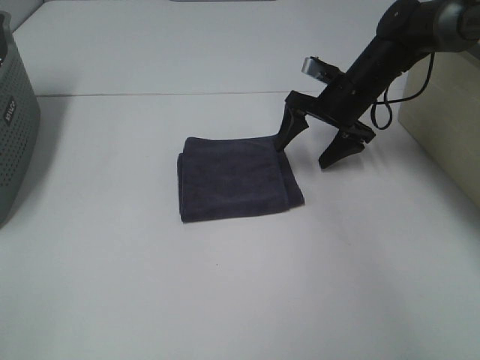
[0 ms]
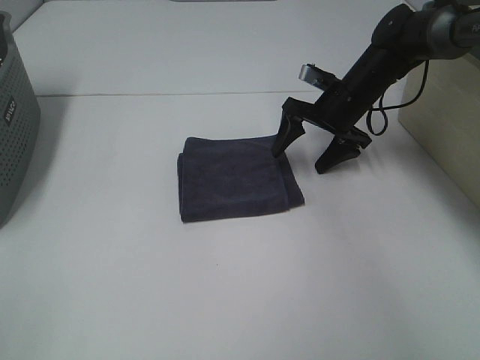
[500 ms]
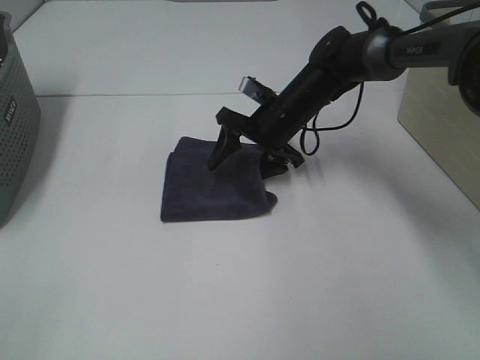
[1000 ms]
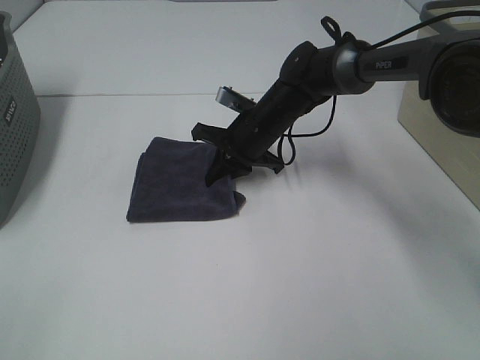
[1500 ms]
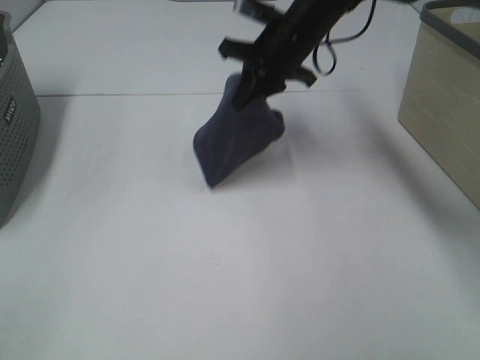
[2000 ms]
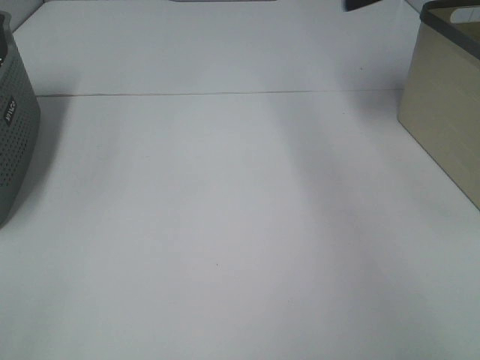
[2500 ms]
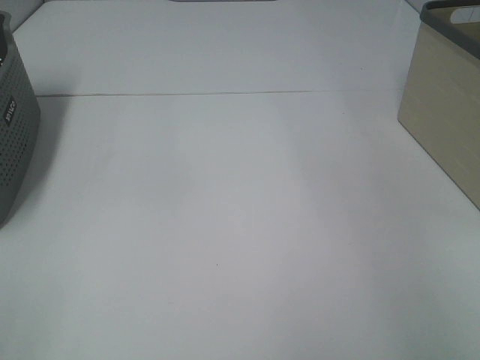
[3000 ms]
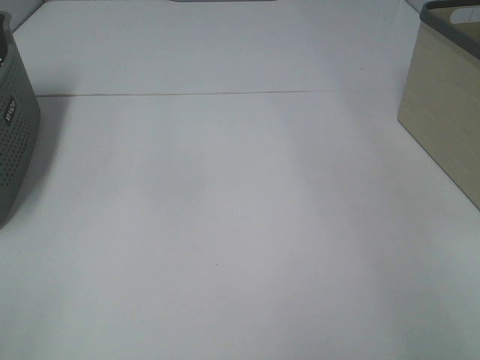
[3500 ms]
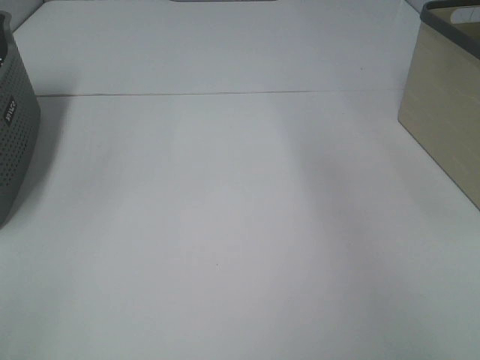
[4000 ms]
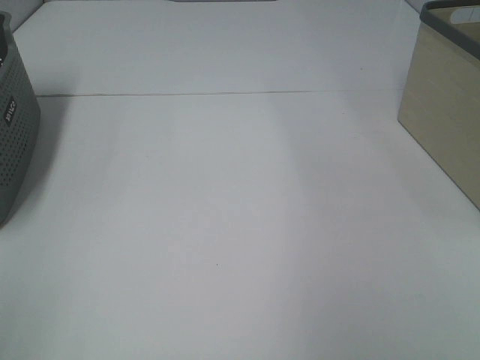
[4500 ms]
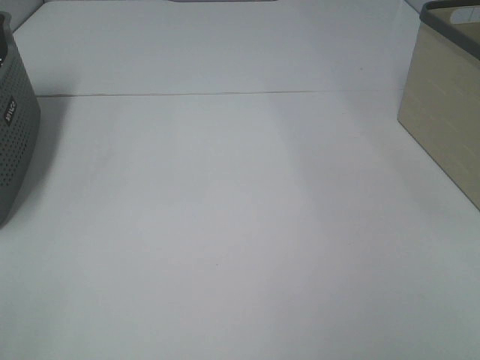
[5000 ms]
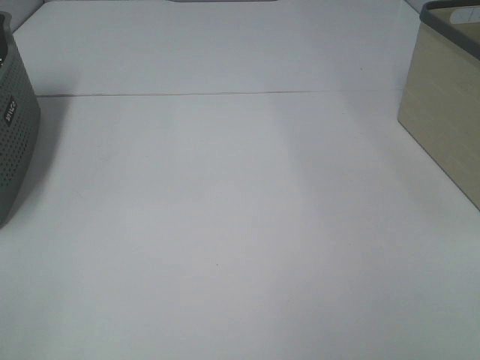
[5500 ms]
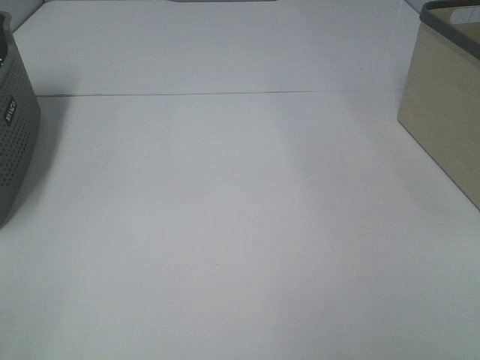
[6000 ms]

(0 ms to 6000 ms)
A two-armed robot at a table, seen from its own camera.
Step, 1500 ms - 3000 ms: Right hand: place the grey towel in right basket.
0 ms - 2000 ms: The right gripper is displaced upward and to the left by about 15 cm, and closes its fingers.
2000 ms - 4000 ms: The right gripper moves to the right and upward, approximately 30 cm, and opens its fingers.

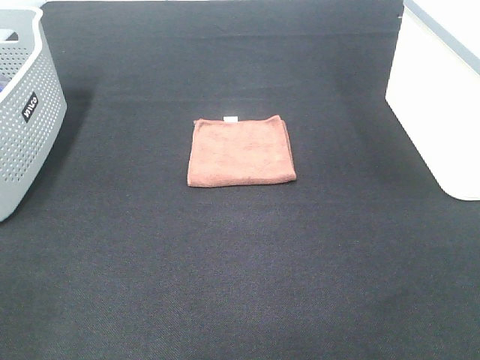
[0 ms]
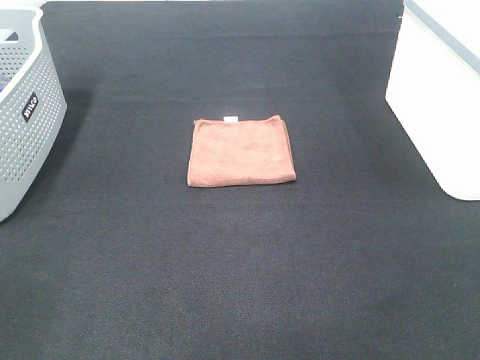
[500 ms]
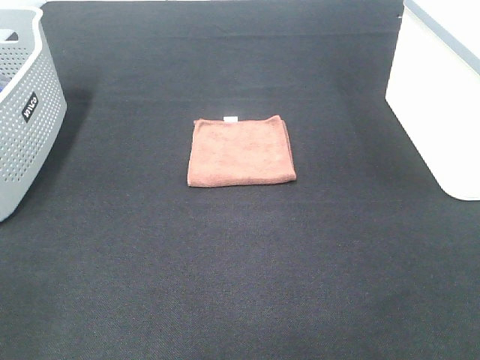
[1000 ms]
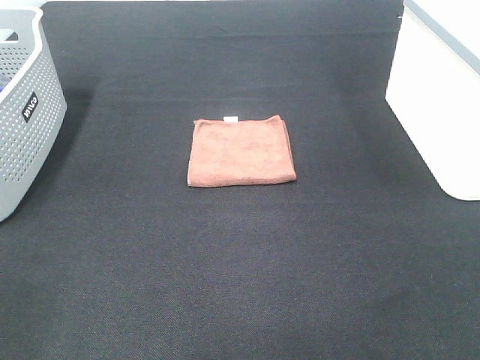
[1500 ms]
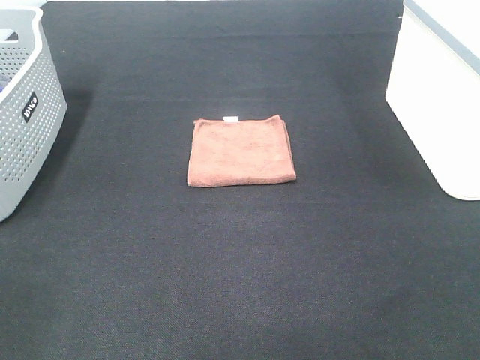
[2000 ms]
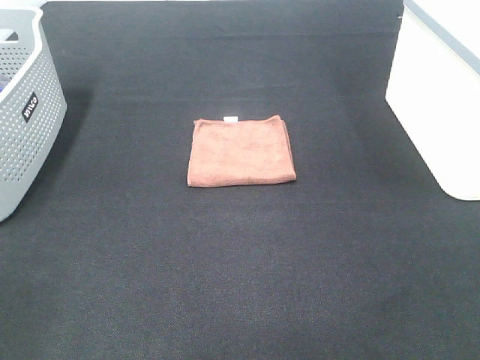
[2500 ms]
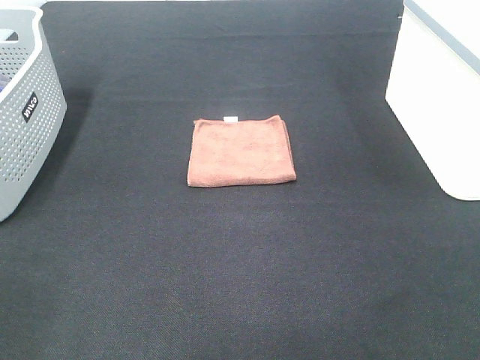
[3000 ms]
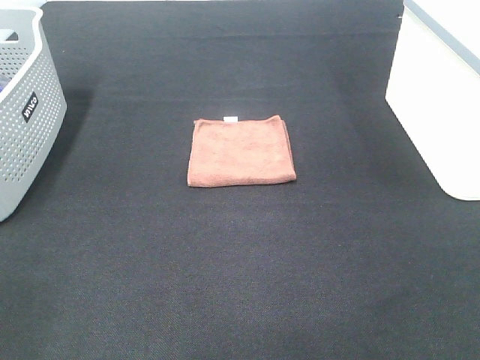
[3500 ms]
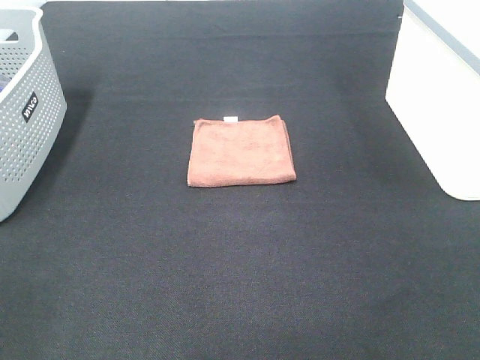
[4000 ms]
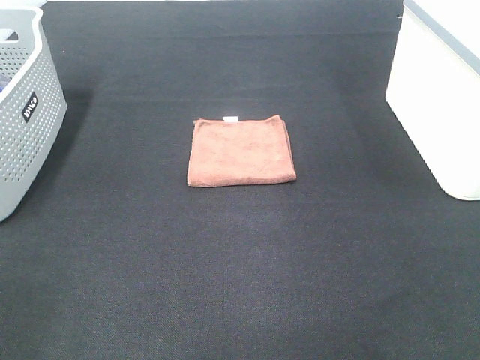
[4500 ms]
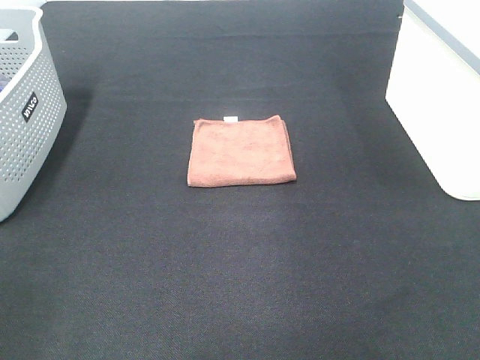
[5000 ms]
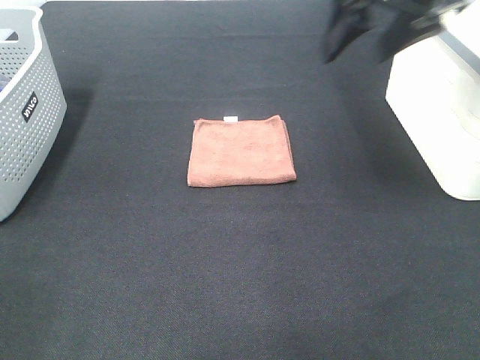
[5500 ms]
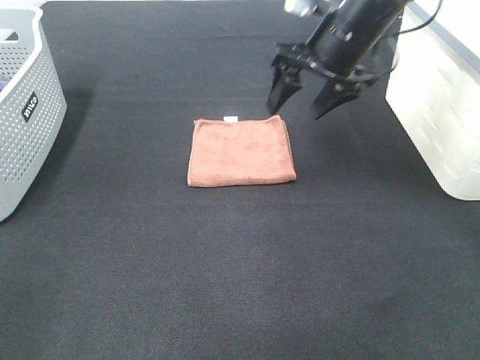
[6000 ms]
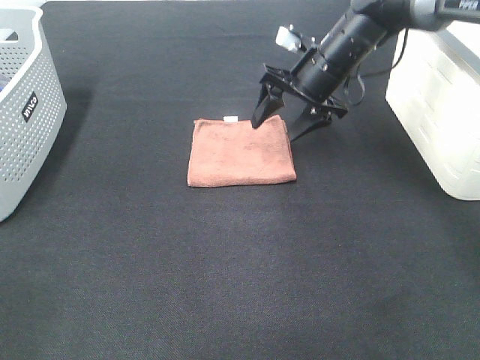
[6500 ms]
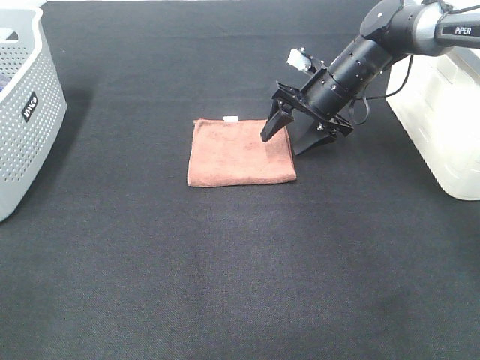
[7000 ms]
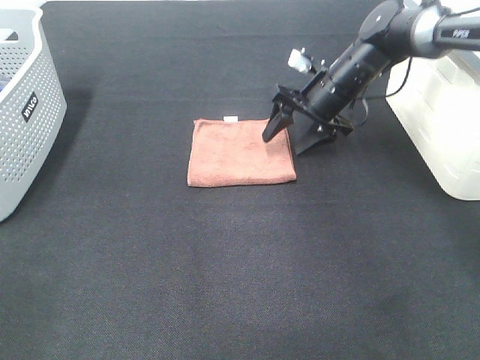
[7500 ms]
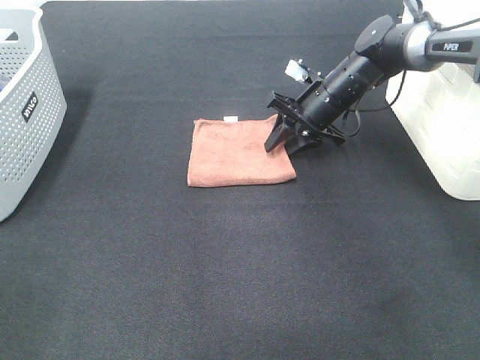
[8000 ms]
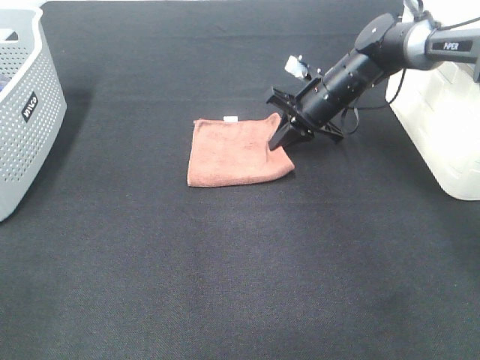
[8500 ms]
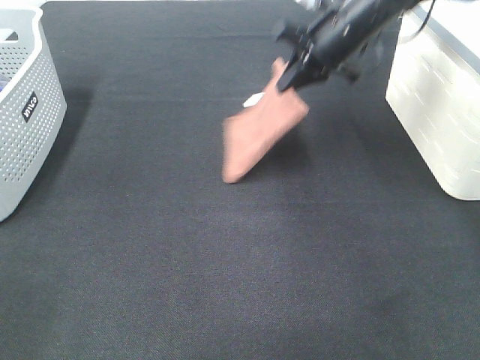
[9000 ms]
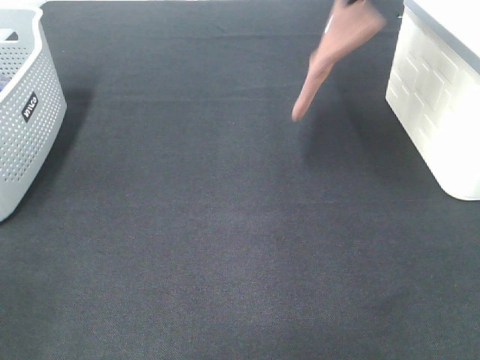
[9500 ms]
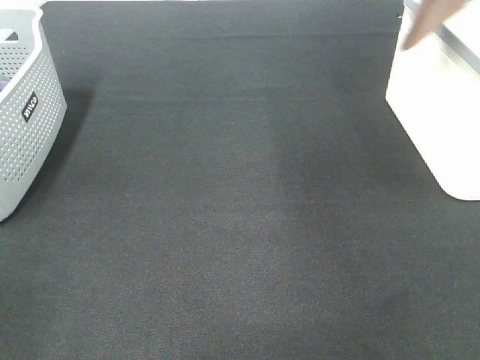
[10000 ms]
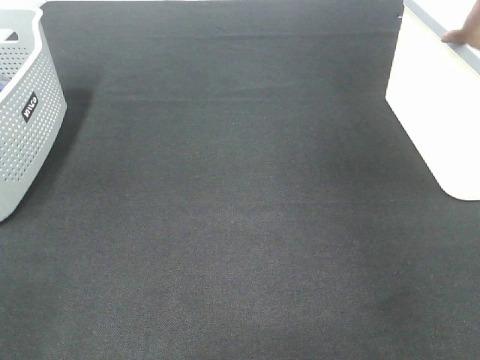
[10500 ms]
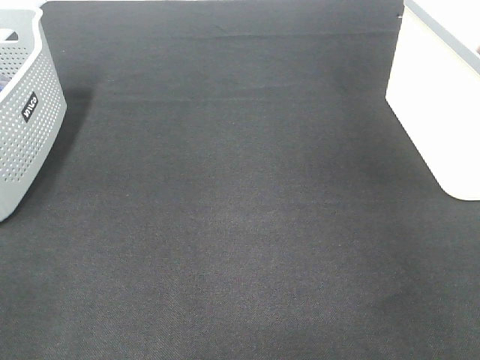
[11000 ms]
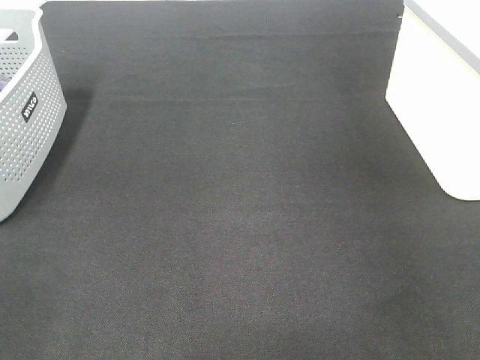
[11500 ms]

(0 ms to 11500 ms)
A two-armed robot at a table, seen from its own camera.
Step, 0 ms - 8500 ms: Right hand: grab the folded brown towel.
0 ms - 2000 ms: Both grippers stay about where they are.
4000 ms - 6000 ms: The right gripper heads forward and to the left, covering about 40 cm.
6000 ms - 7500 ms: The right gripper travels downward and forward by approximately 15 cm.
7500 ms - 9500 ms: The right gripper travels upward by some 25 cm, and closes up.
9500 ms - 11500 ms: The right gripper travels to the right by some 20 cm, and opens its fingers.
